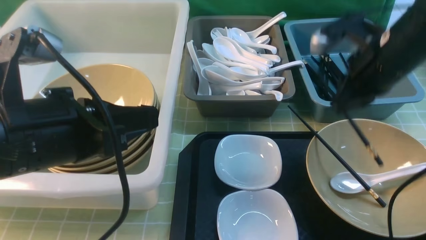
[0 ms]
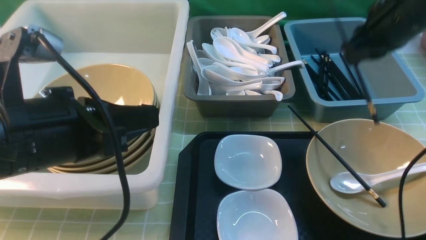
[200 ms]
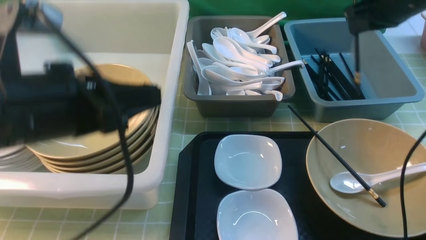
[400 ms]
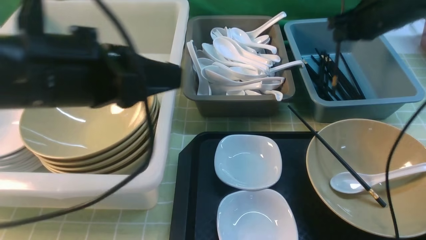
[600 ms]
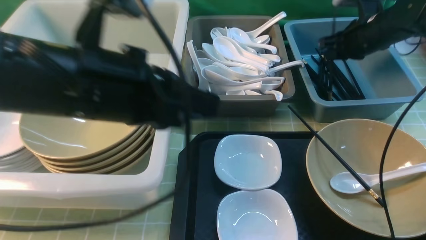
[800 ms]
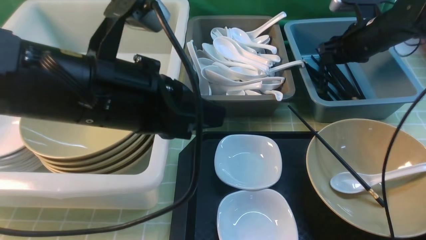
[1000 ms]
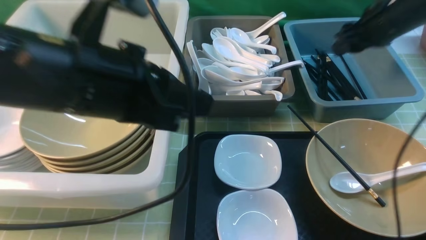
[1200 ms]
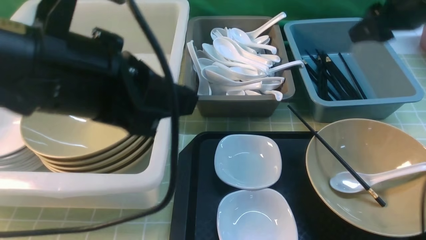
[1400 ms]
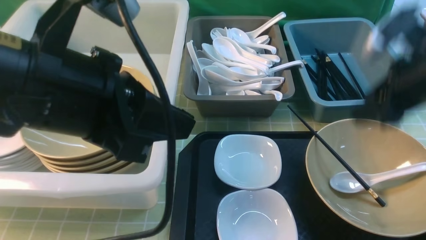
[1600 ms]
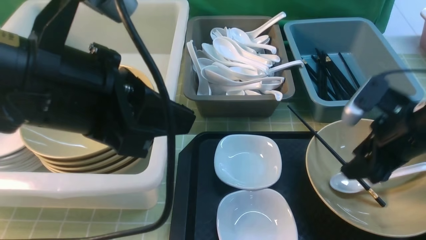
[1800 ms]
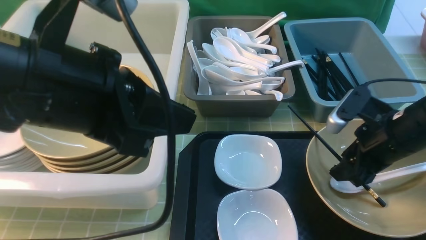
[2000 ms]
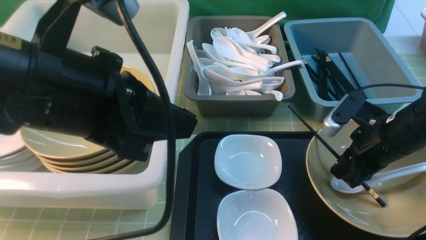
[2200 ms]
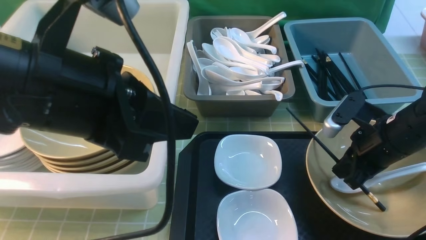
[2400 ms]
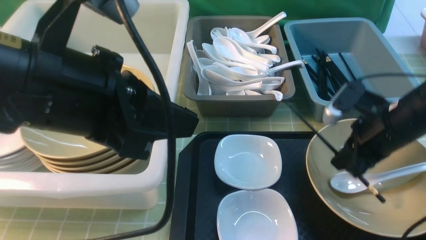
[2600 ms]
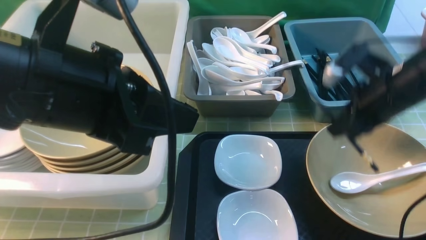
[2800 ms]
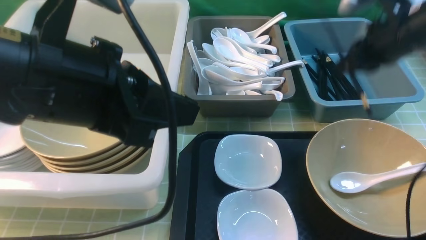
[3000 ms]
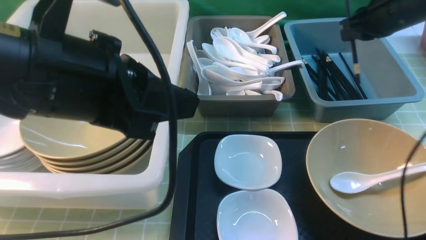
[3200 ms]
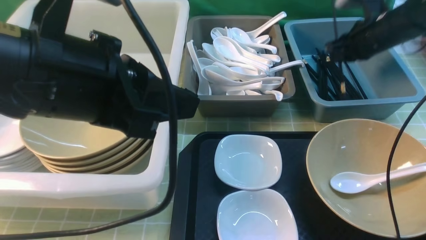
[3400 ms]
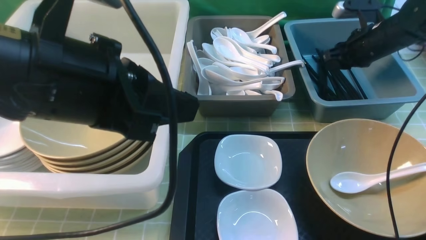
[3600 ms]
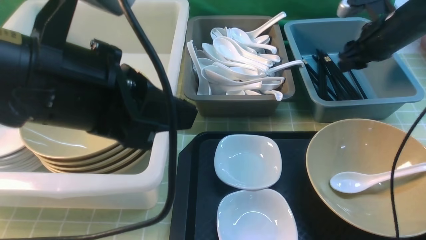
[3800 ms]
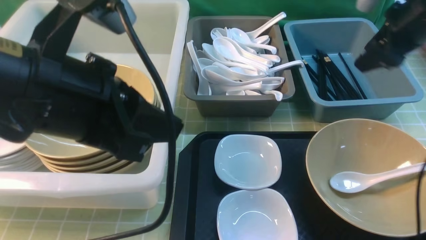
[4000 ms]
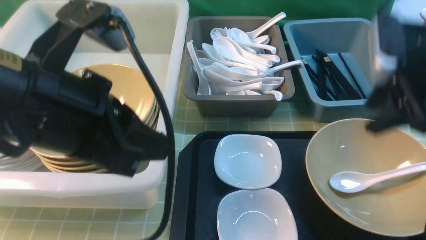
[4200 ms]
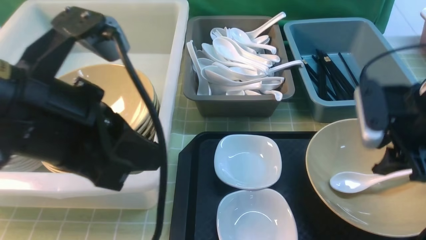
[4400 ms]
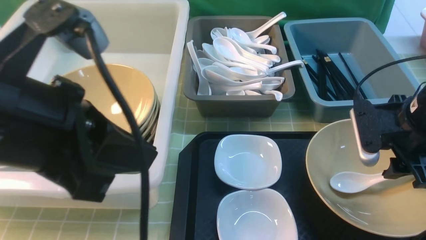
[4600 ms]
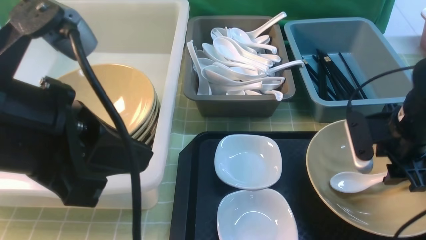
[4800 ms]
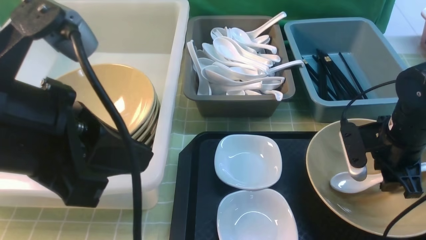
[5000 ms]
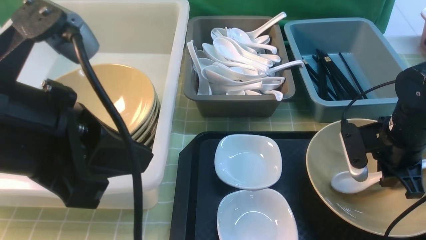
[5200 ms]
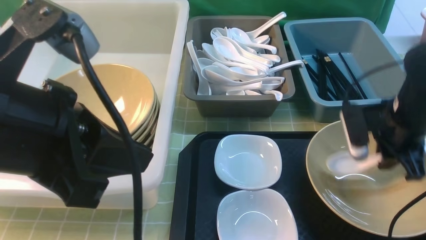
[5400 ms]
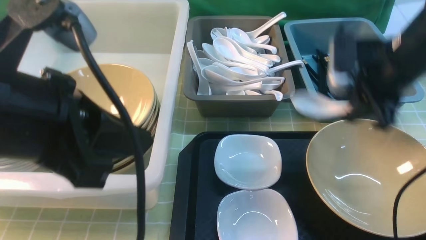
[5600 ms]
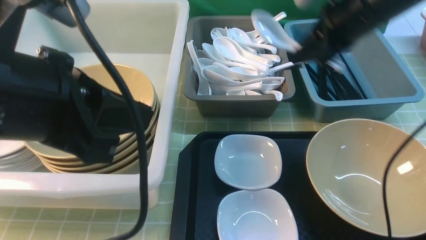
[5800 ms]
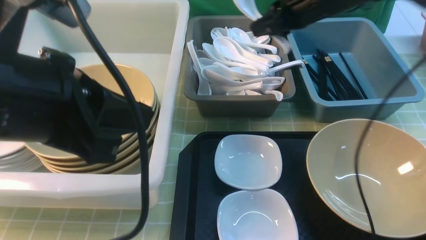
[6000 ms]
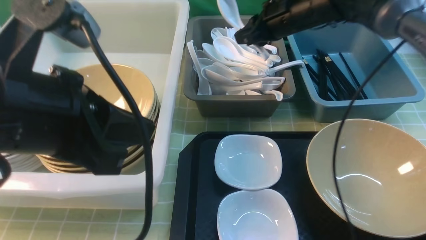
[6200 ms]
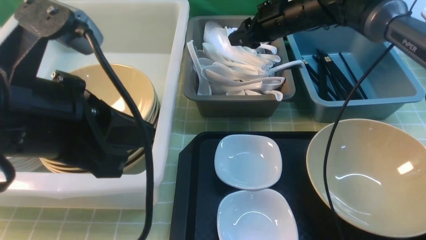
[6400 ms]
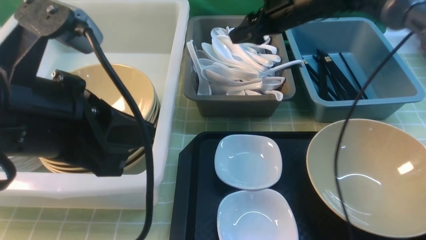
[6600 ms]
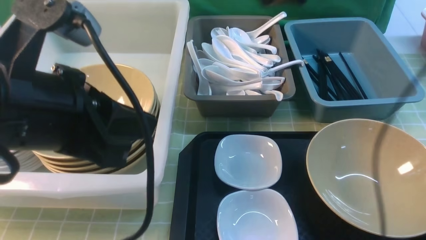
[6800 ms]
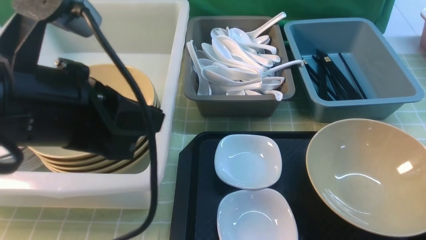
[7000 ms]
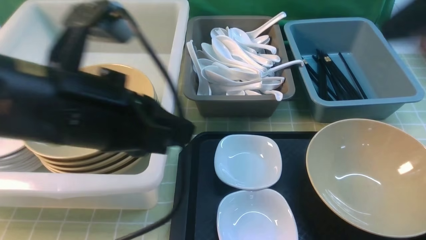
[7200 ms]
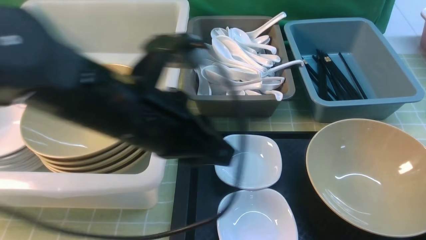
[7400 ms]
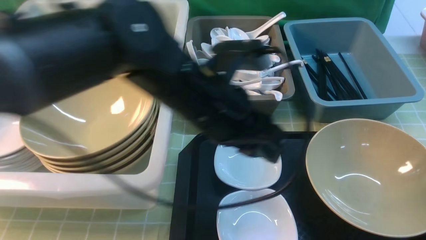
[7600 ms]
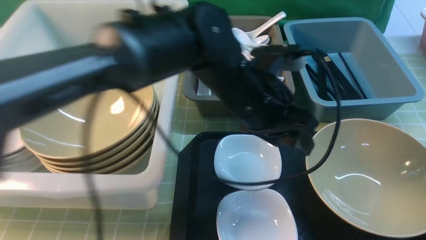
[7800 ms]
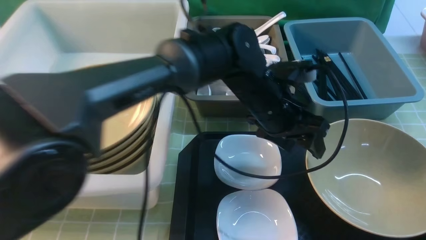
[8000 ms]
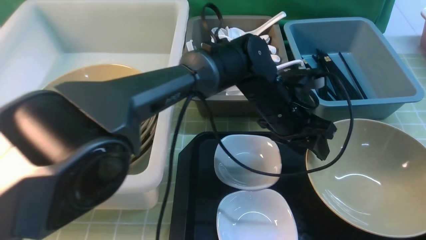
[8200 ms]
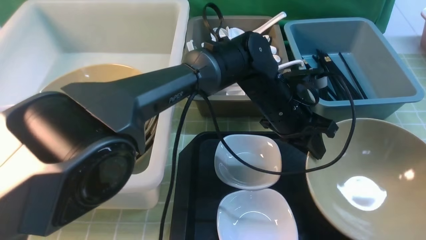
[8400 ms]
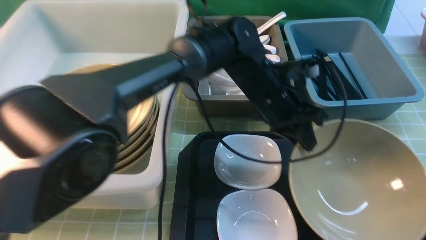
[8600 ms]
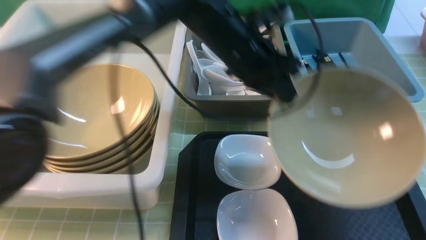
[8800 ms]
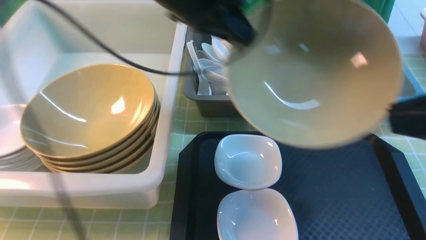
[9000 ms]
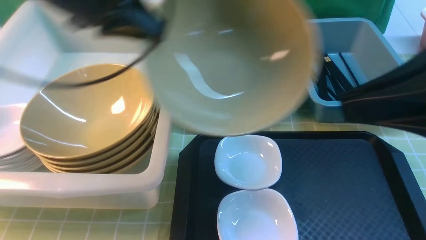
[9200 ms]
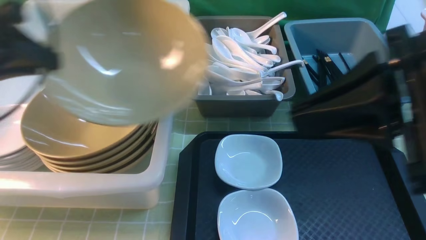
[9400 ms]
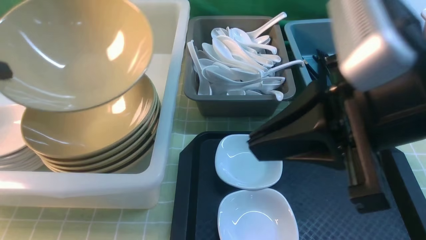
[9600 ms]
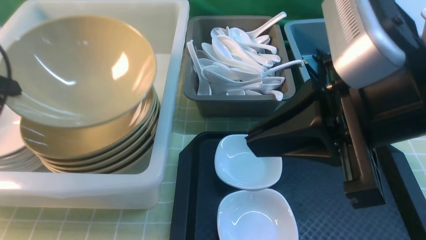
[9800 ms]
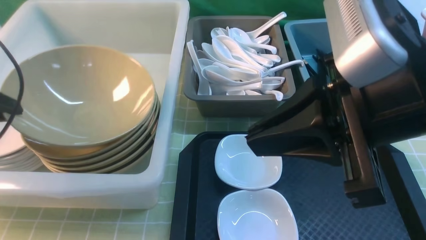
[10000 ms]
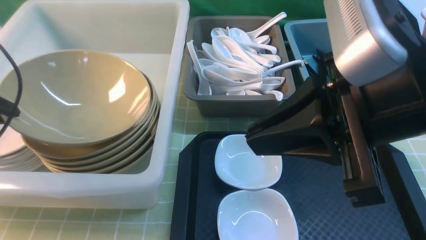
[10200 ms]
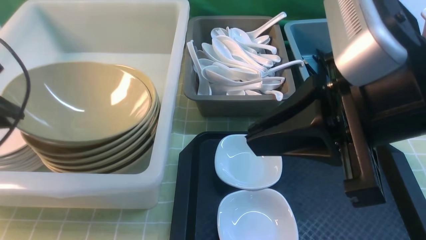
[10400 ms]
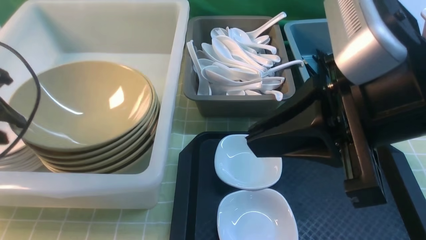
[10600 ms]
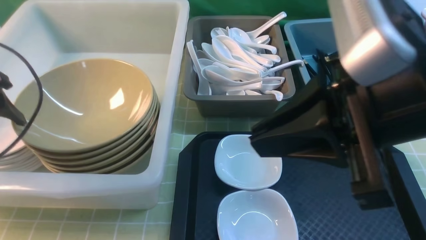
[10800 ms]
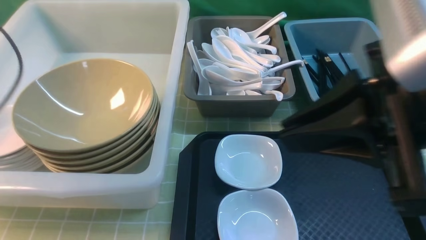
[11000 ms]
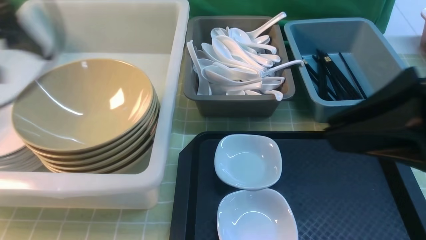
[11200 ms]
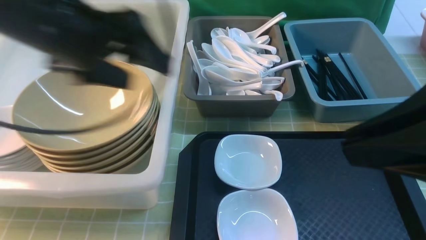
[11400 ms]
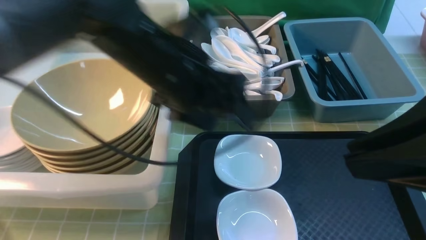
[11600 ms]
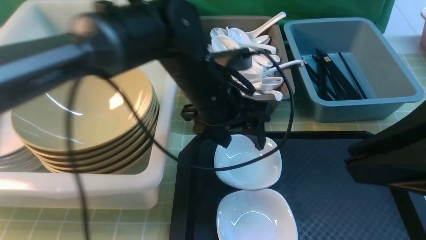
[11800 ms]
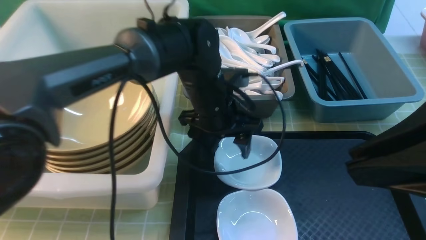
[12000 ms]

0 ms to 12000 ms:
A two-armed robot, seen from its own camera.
Task of the whole recording: on green table put chopsticks spoon bowls plates into blue grey white boxes.
Step, 0 ms to 1000 ms: use the right arm to put a chopstick into the small storage box on the right.
Step, 1200 ms to 2800 ms: use the right arm to grab a chopstick.
Step, 3000 ms to 3800 ms: use the right arm to put a chopstick into the small storage box on the right.
Step, 4000 ms to 5400 ms: use the right arm to grab the soup spoon in the middle.
Step, 5800 ms to 6800 ms: use the right arm to put the soup spoon into the small storage box in the middle.
Step, 7200 ms to 8400 ms: use the left arm to grab the yellow noodle bowl on the left.
Step, 8600 ms to 10800 ms: use the left arm to put the noodle bowl into the large storage box on the left.
0 ms to 1600 ms: The right gripper moves to the right, some 5 cm, moves roughly 15 cm forward and comes back, and opens, while the left gripper is displaced upward by approximately 5 cm.
1600 ms to 3000 ms: The right gripper goes downward and returns, approximately 10 cm each way, and closes.
3000 ms to 4400 ms: The right gripper heads backward, covering approximately 5 cm, and opens.
4400 ms to 6000 ms: The right gripper moves forward and to the left, some 15 cm, and closes up.
6000 ms to 7600 ms: The left gripper moves to the right, forward and downward, some 15 cm. The right gripper moves backward, roughly 35 cm, and opens, then closes again.
7600 ms to 9000 ms: The left gripper shifts roughly 10 cm forward, travels downward and back again, about 10 cm each way, and opens, then closes once more.
9000 ms to 10400 ms: The right gripper shifts roughly 10 cm to the left and forward. Meanwhile the left gripper is displaced to the left by some 30 cm.
10400 ms to 12000 ms: The right gripper is displaced backward and to the right by roughly 10 cm. Meanwhile the left gripper goes some 35 cm to the right, and opens.

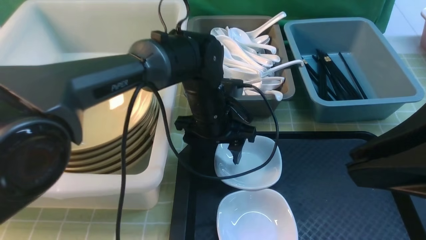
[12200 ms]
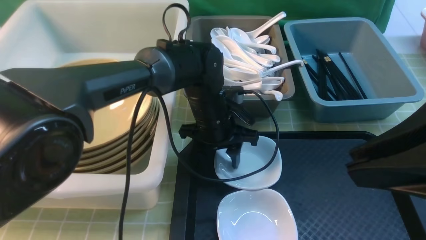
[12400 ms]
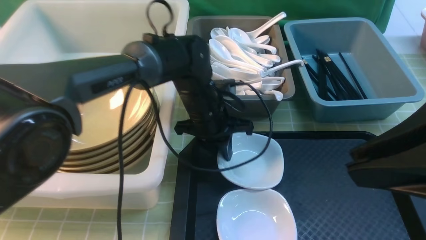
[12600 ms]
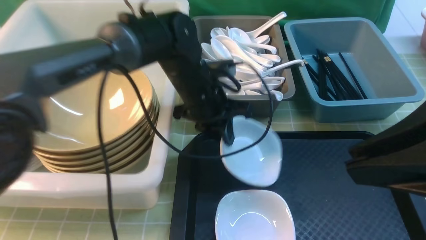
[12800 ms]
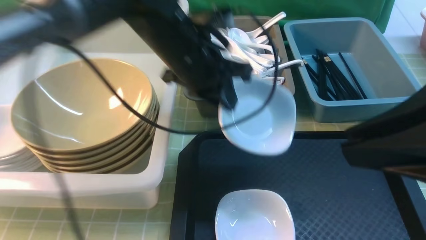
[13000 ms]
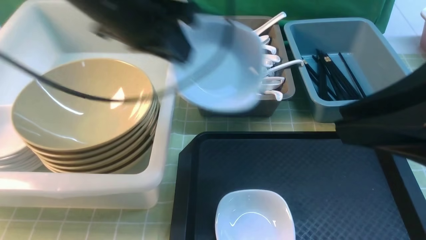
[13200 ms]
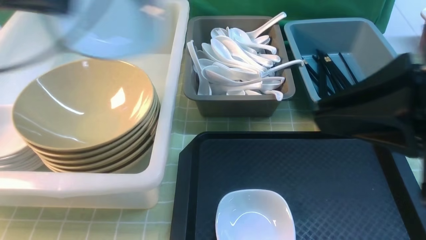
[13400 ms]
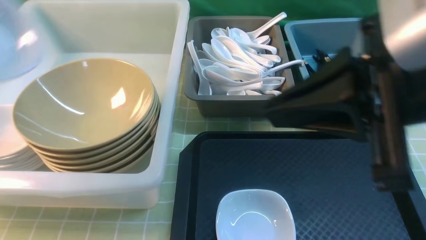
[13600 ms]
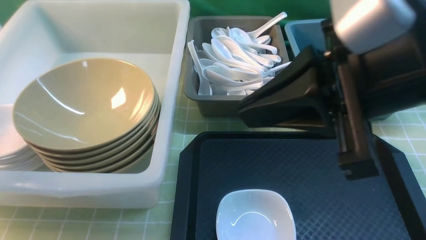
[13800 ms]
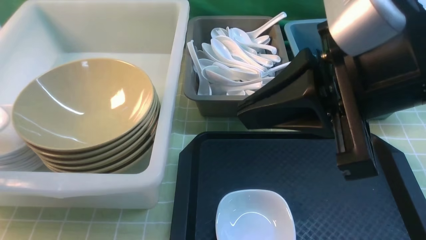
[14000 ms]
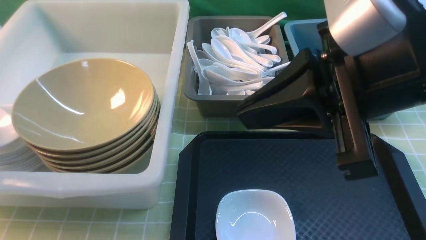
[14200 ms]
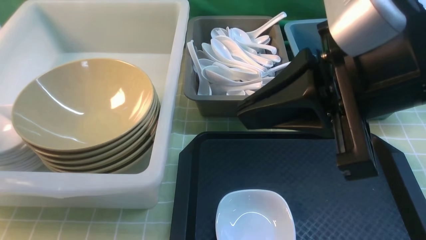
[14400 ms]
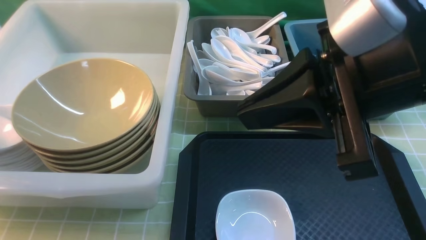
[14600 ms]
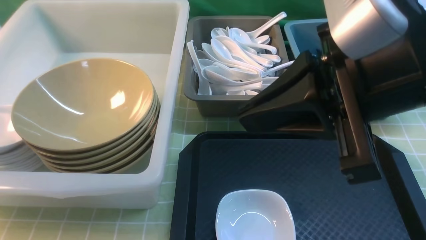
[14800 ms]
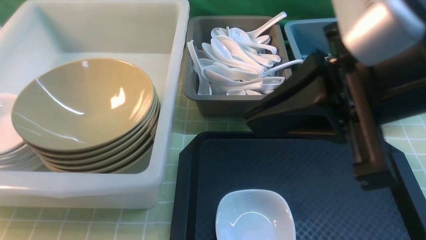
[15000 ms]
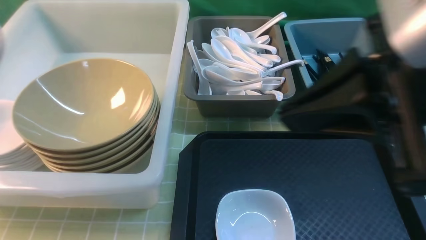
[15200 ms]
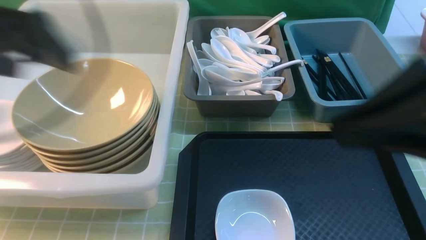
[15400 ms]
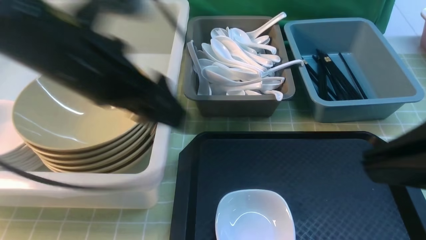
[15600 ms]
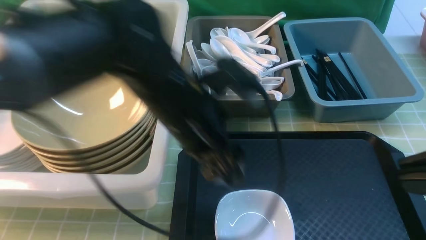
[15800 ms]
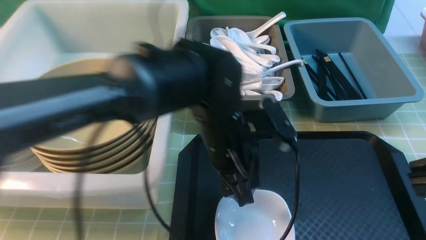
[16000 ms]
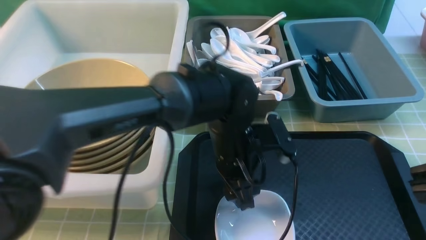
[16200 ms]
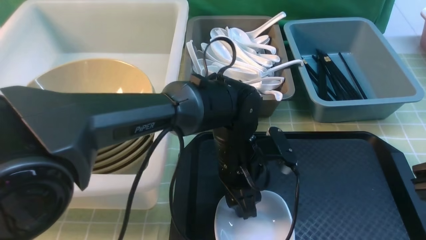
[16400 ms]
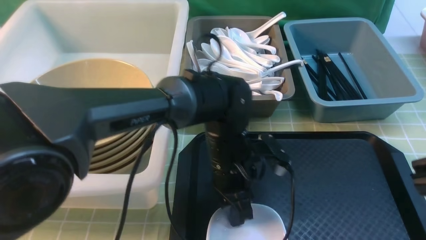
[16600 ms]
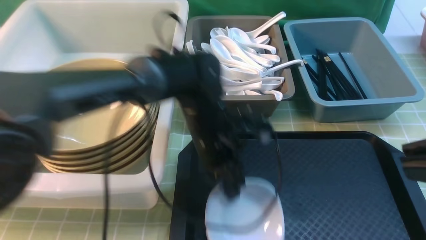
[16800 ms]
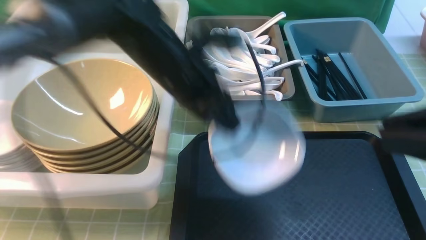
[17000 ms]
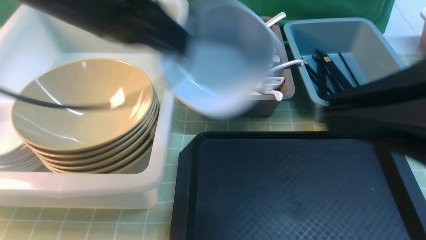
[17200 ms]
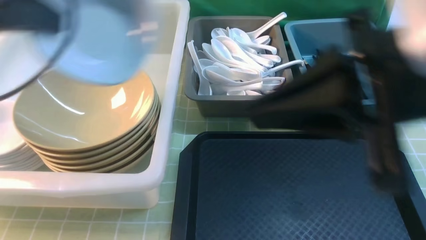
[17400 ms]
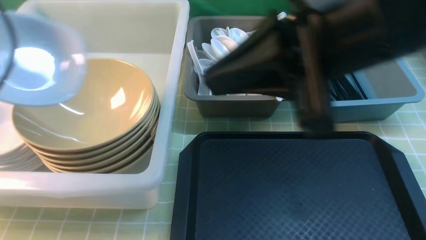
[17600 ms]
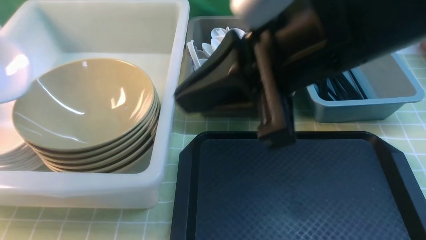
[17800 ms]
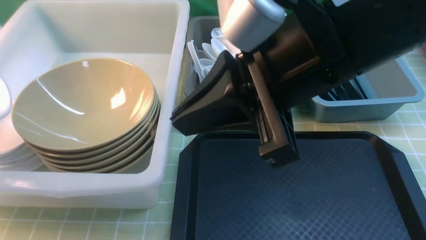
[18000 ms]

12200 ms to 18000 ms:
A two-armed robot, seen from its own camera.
Task of the whole recording: on green table put chopsticks spoon bowls plates into blue grey white boxes.
Step, 13000 ms to 15000 ms: use the left arm to put the plate into the large storage box on the left.
Step, 15400 ms to 16800 ms: use the left arm to grab the plate.
12200 ms to 13600 ms: The right gripper ends up about 5 cm from where it was. Meanwhile the left gripper is displaced to the left and upward by approximately 35 cm, and closes.
13600 ms to 15000 ms: The left gripper goes approximately 15 cm to the left and downward, and opens.
15000 ms to 16600 ms: The right gripper shifts some 15 cm backward and to the right. Meanwhile the left gripper heads to the right and downward, covering approximately 40 cm, and closes up.
16600 ms to 18000 ms: The left gripper travels to the left and upward by about 50 cm. Meanwhile the right gripper heads to the left and forward, covering roughly 20 cm.
